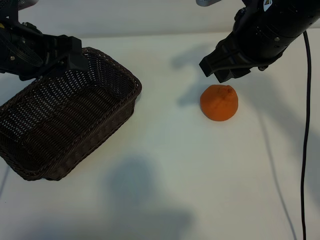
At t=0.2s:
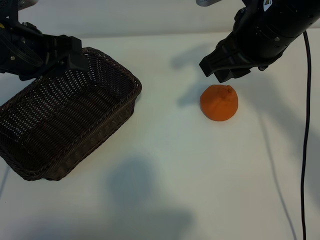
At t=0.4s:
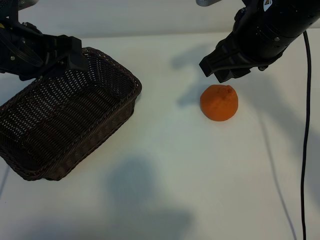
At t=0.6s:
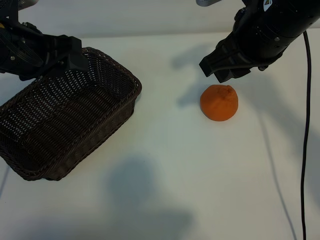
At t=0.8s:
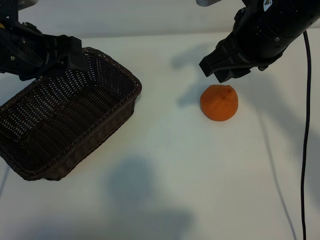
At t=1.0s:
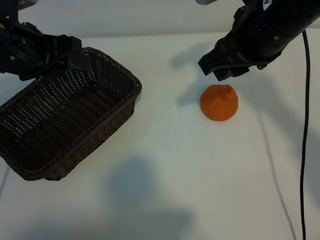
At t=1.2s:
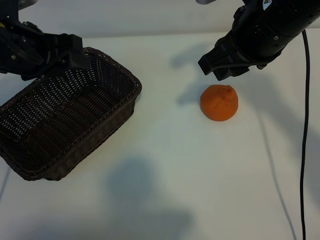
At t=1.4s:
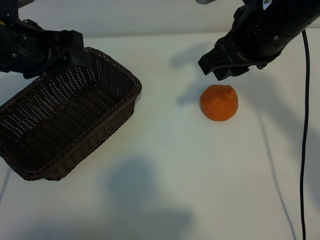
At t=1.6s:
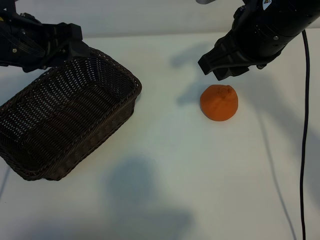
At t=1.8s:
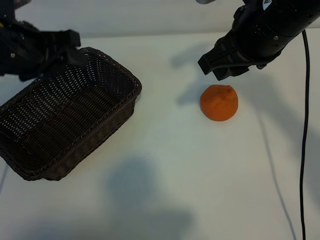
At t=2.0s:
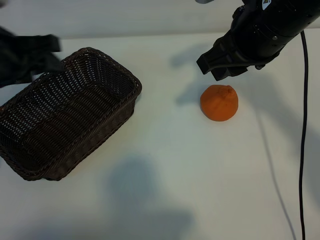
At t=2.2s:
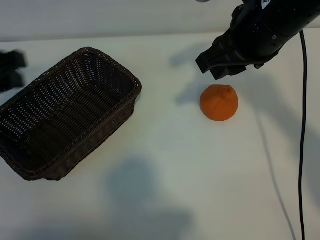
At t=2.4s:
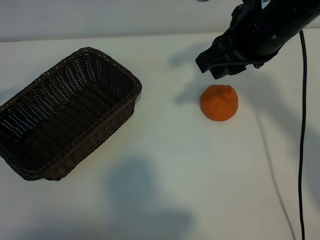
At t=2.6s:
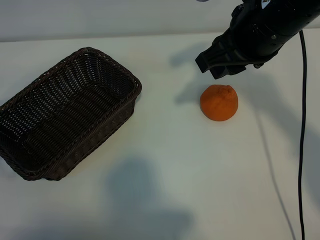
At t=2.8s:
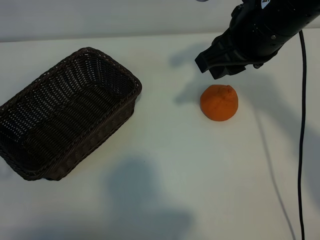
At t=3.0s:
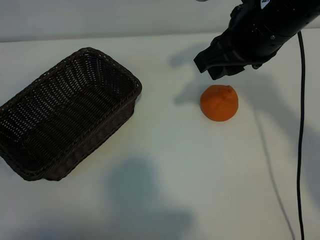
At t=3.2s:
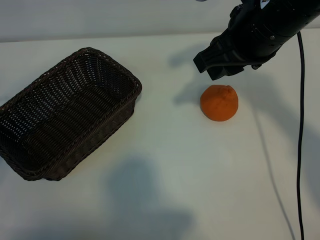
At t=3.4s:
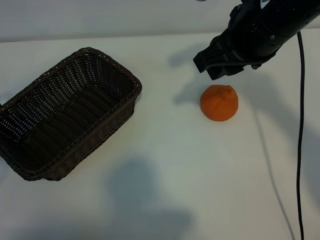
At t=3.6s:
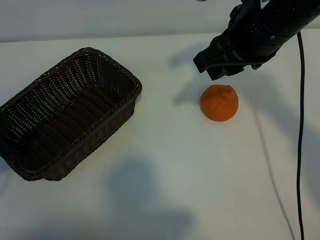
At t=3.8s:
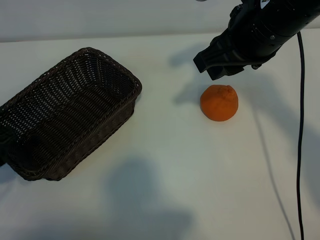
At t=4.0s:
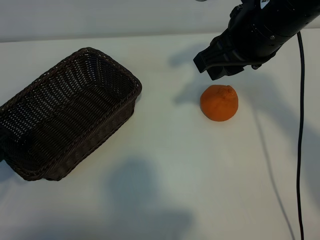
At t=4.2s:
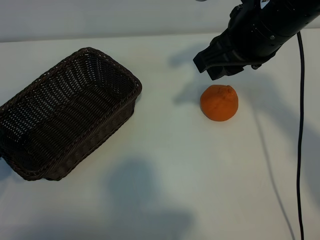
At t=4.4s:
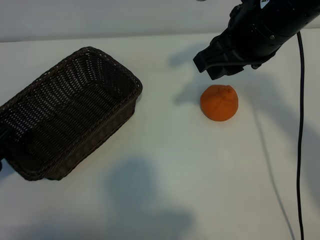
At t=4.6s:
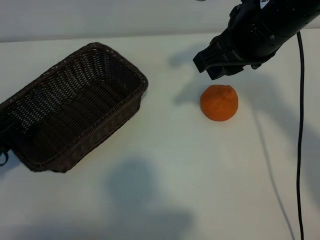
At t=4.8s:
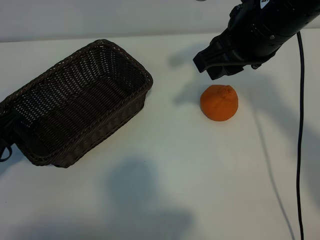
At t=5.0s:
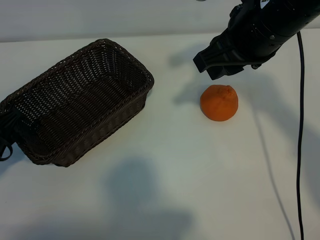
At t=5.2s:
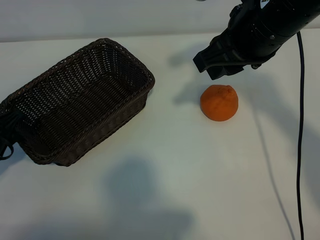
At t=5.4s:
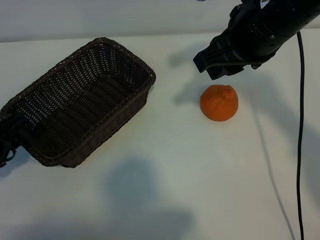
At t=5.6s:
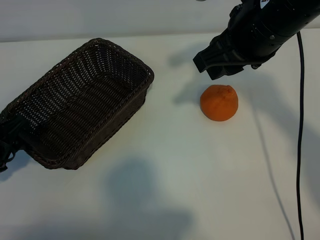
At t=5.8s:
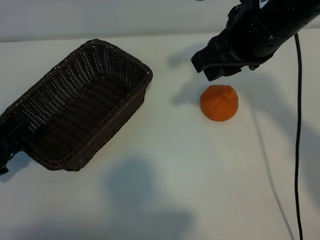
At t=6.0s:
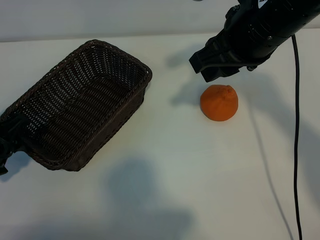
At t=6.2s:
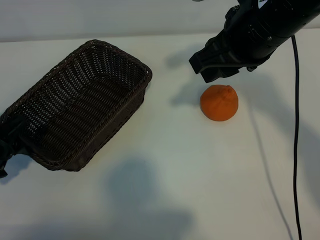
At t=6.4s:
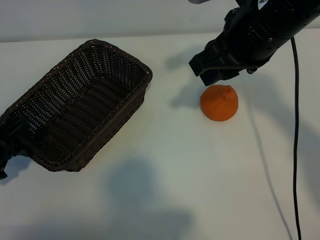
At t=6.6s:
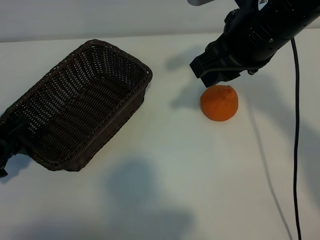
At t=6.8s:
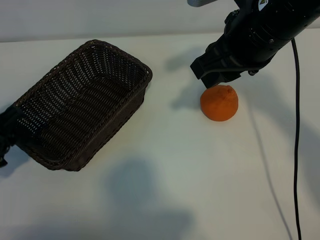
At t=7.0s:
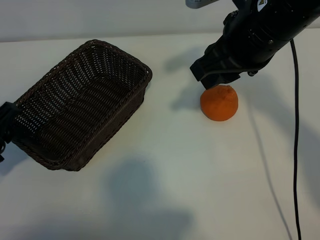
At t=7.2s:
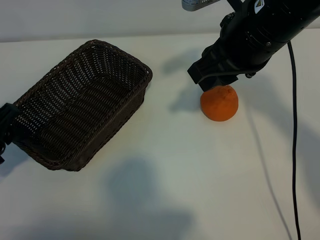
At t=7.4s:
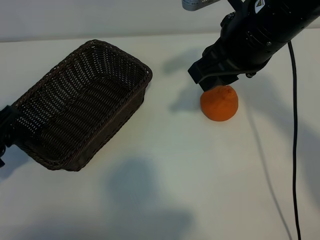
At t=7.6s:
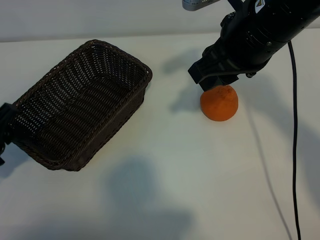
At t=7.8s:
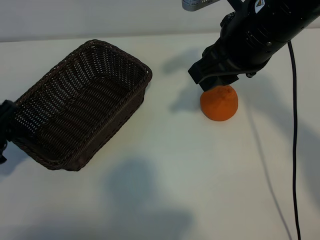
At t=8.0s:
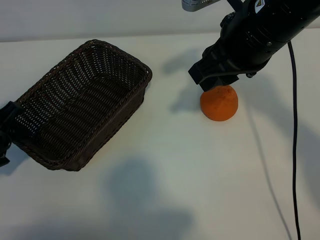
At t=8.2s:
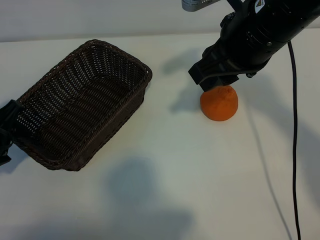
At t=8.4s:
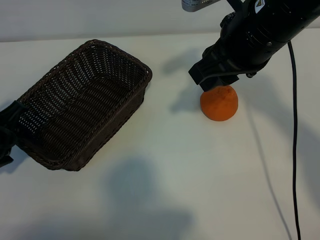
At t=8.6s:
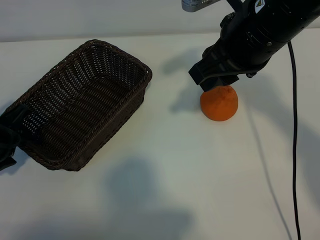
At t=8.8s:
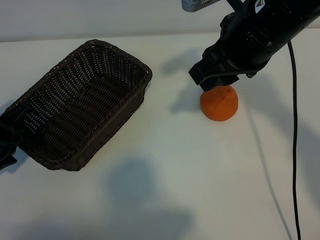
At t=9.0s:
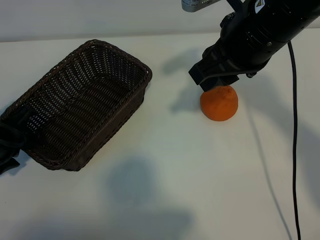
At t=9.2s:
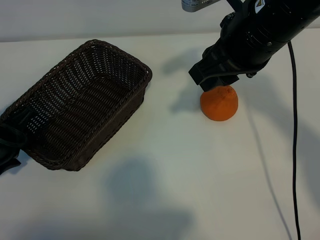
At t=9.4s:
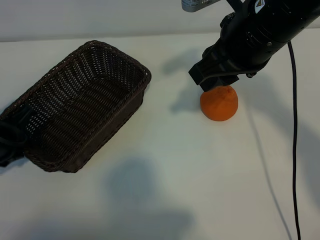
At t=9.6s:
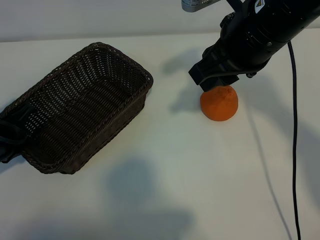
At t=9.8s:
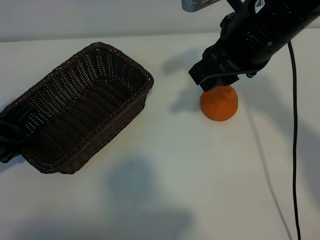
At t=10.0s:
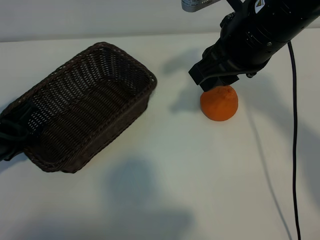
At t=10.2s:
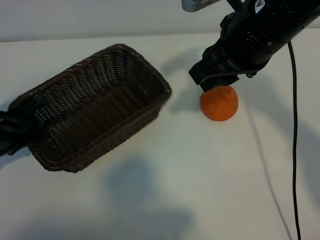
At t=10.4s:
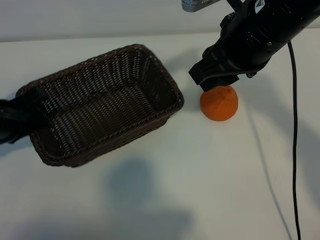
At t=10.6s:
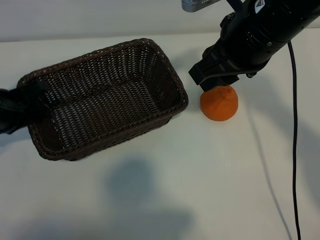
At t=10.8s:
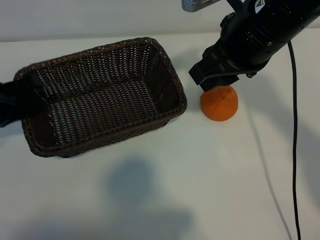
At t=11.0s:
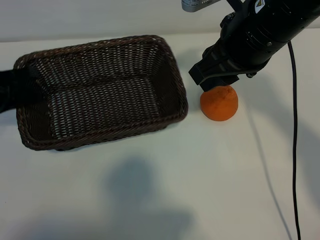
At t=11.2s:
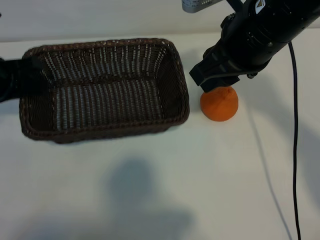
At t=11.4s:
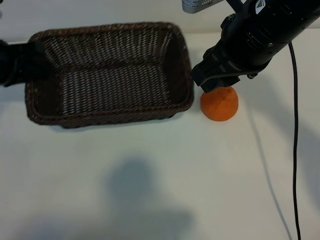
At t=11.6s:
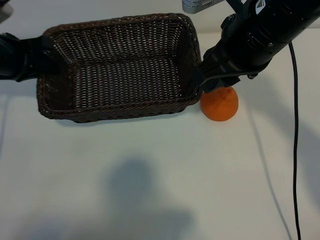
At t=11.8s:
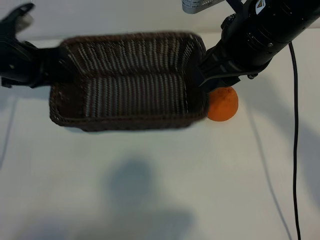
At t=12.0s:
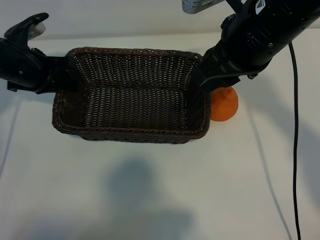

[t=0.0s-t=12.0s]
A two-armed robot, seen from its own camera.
Task of the whole recording: pick up the orange and put it into the basket.
Step, t=1.0s to t=9.4s: Grasp the basket with left gripper.

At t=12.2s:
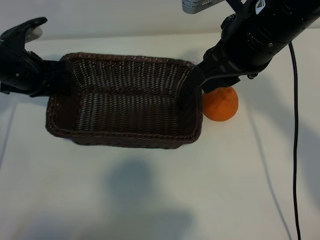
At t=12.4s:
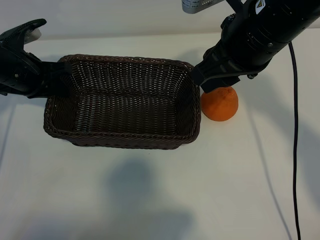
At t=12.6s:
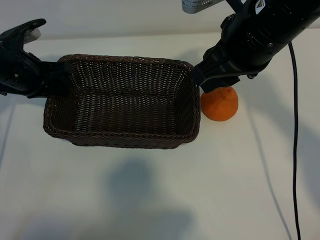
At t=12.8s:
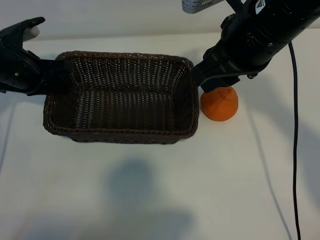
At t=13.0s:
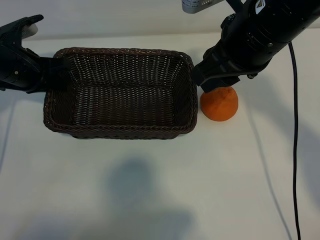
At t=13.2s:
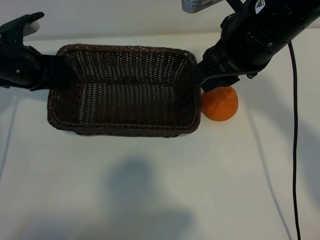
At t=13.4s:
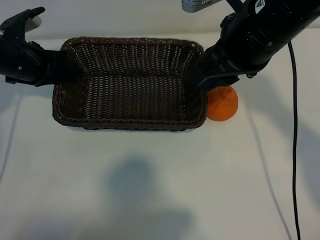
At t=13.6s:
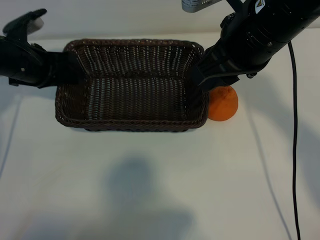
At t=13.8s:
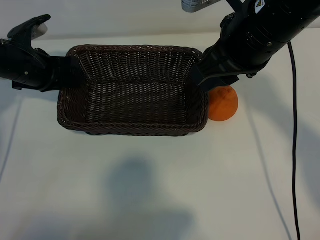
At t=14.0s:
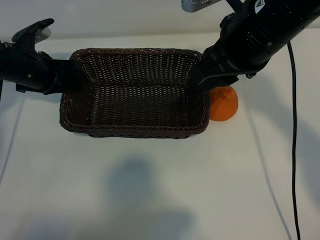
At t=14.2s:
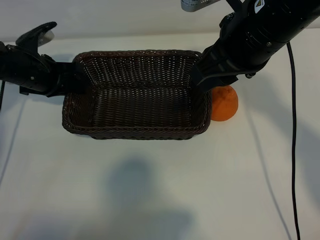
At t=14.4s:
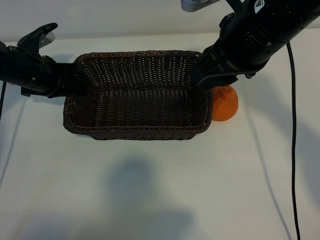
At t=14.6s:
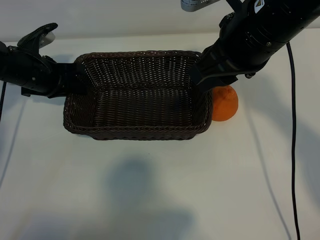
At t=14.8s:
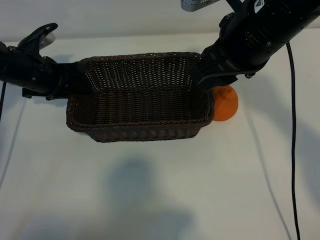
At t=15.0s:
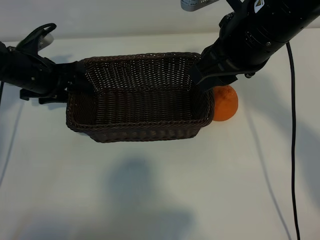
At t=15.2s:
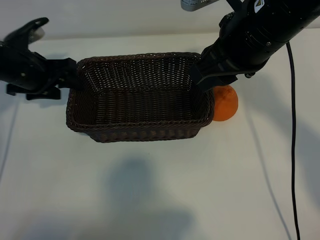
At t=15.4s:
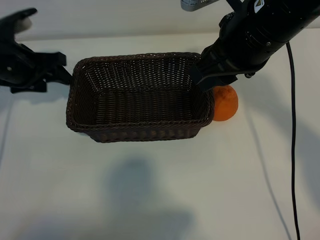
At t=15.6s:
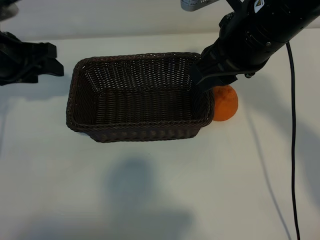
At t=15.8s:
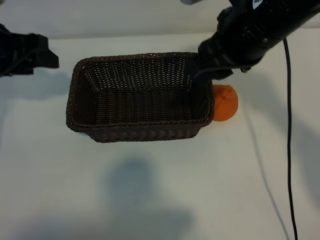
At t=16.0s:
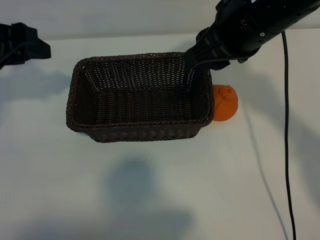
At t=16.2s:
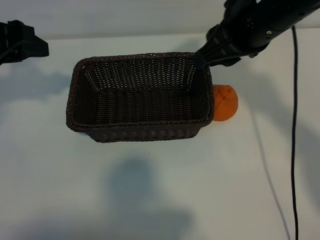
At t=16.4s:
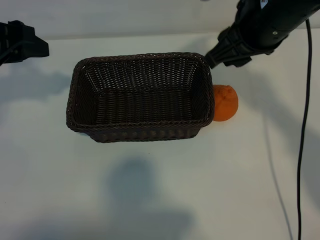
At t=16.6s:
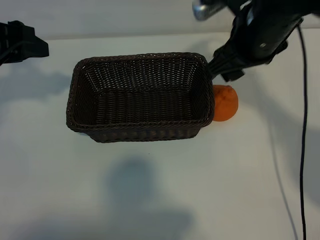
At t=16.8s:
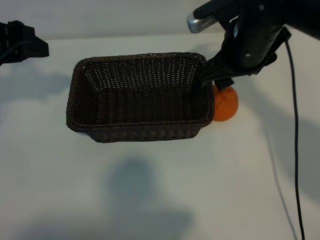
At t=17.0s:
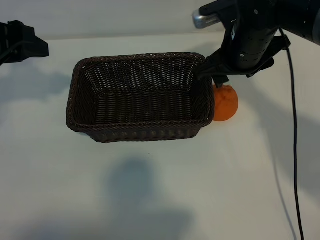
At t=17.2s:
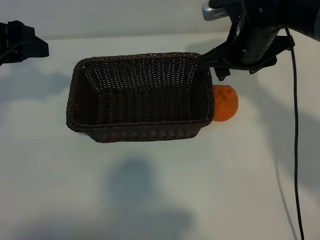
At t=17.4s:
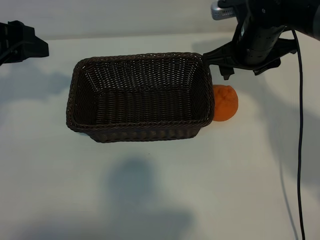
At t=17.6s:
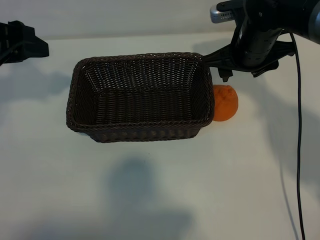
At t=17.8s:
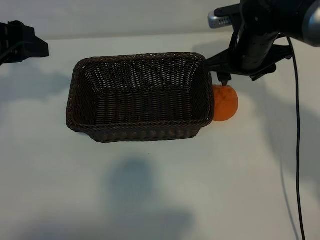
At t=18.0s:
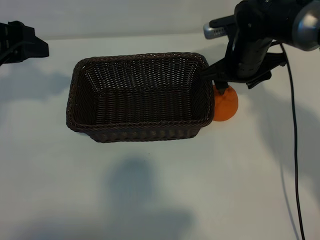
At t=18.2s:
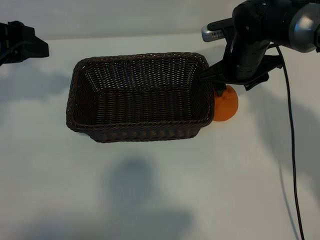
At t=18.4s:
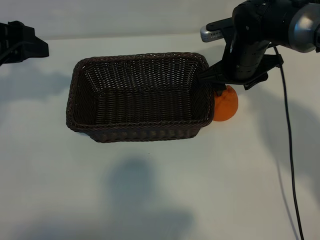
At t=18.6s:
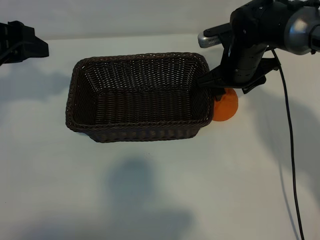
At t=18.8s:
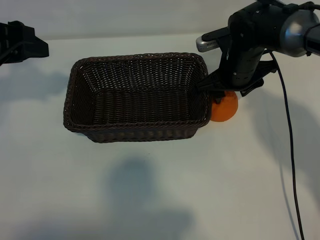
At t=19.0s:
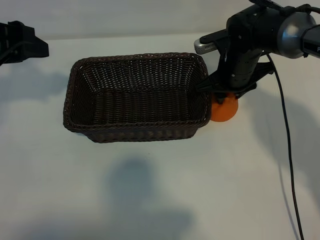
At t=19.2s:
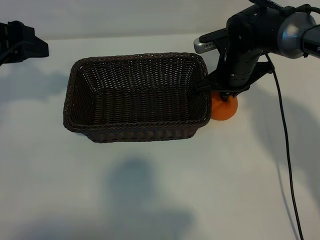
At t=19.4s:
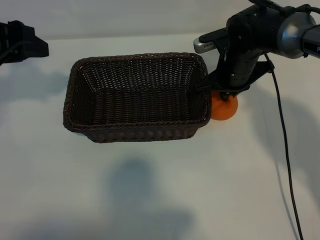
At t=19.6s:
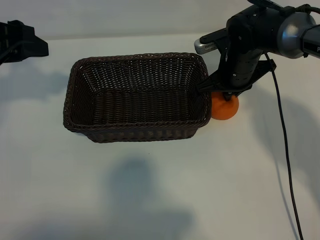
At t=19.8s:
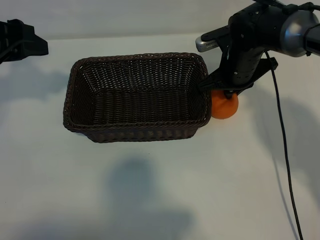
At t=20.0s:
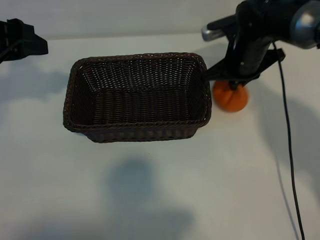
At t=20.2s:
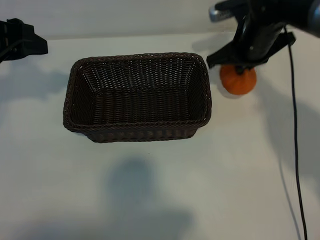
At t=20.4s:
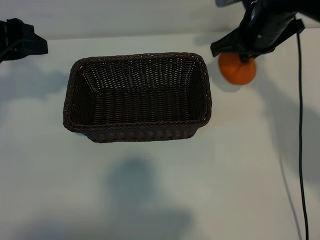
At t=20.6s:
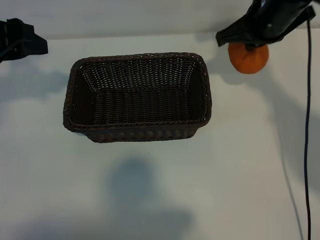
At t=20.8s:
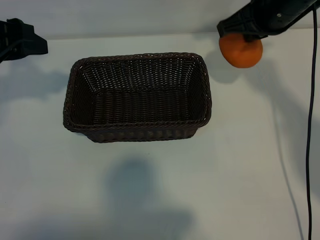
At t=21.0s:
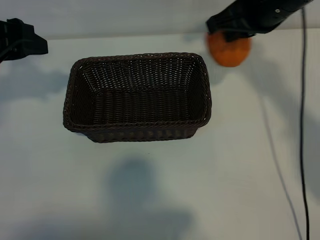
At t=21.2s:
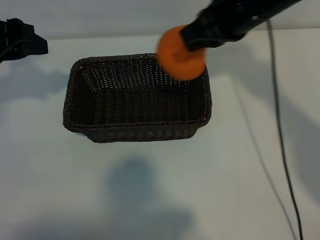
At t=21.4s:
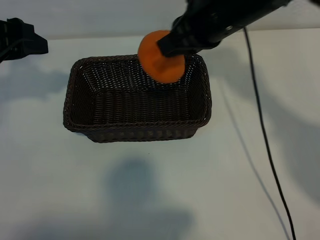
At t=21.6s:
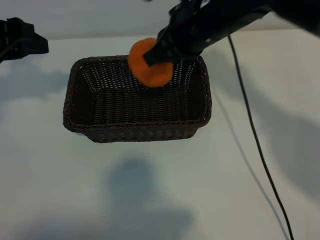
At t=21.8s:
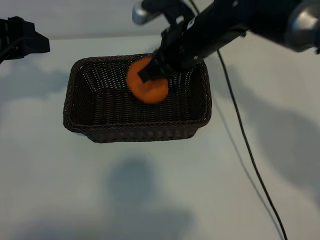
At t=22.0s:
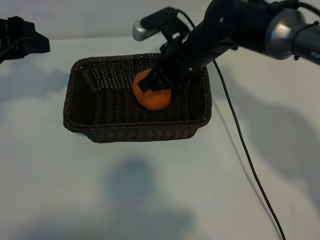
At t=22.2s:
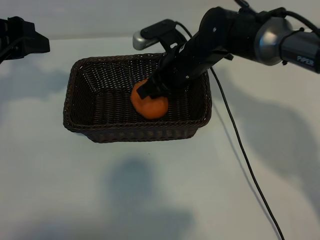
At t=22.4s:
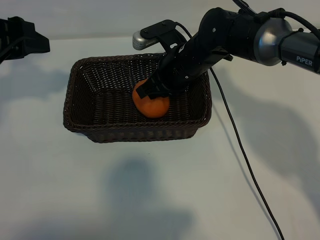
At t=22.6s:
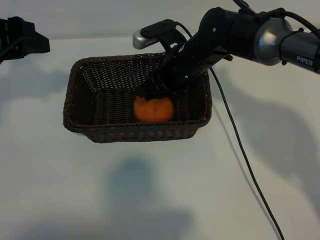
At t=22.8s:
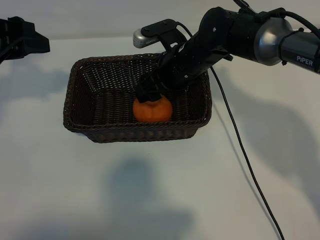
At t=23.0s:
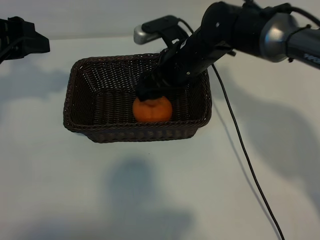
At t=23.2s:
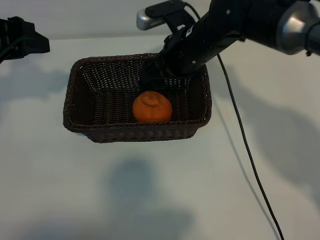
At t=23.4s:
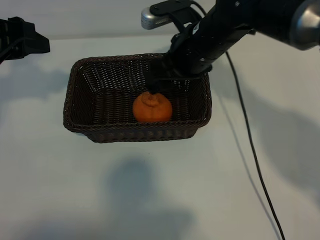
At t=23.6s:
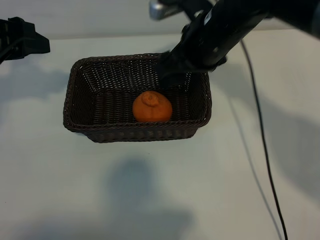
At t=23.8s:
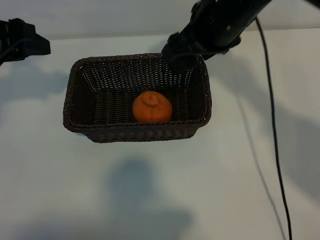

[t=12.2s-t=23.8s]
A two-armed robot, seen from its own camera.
Task of the whole recording: pick up the orange and put it into the basket.
Step, t=12.2s to t=14.8s: Place the basket in the center of view with left gripper.
Step, t=15.0s to t=19.0s: Grasp the orange with right gripper.
Step, t=19.4s to t=22.6s: Place the orange in the basket with right gripper.
